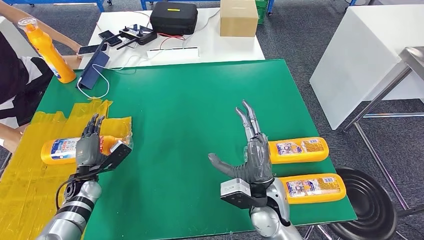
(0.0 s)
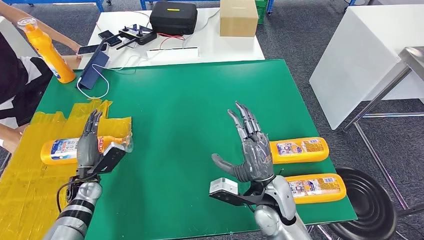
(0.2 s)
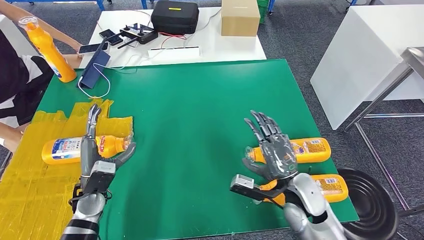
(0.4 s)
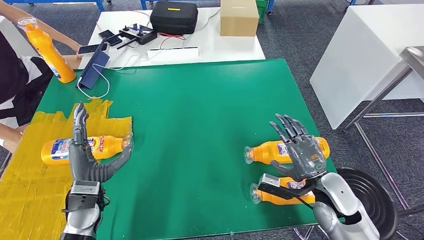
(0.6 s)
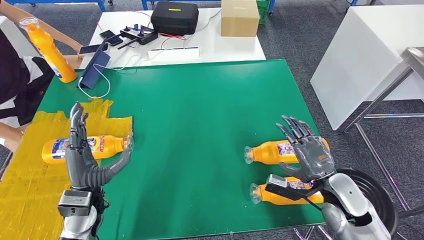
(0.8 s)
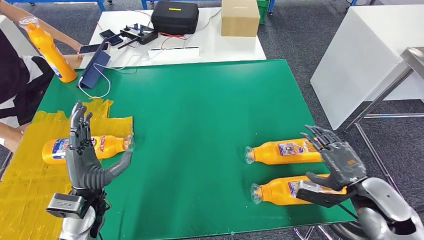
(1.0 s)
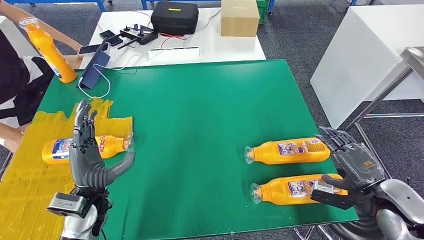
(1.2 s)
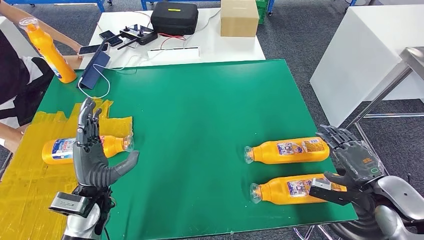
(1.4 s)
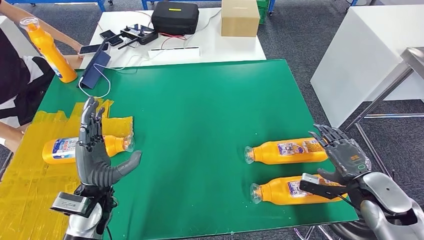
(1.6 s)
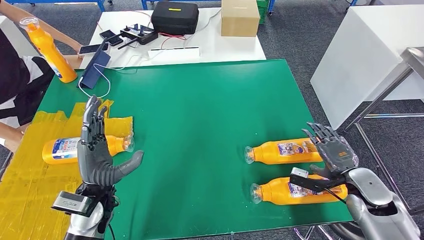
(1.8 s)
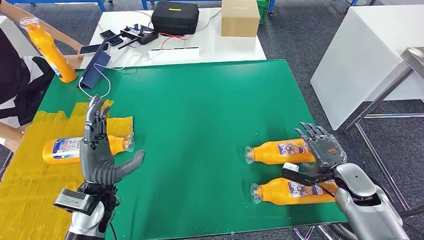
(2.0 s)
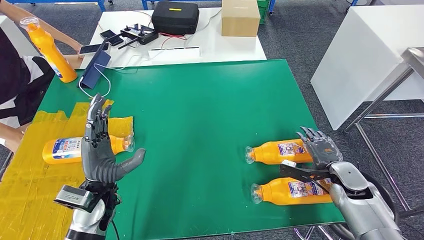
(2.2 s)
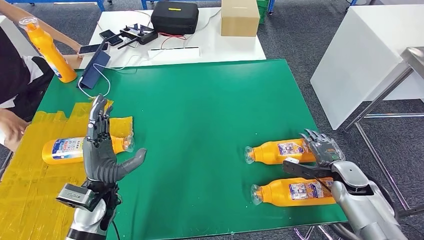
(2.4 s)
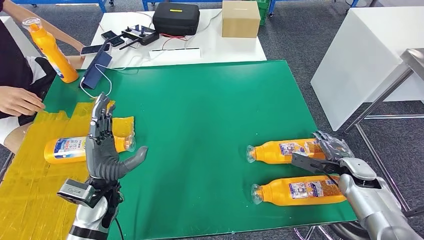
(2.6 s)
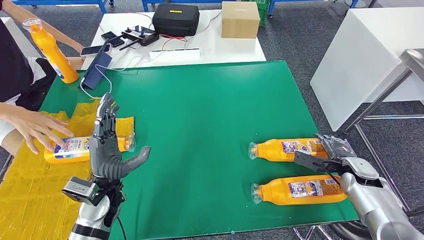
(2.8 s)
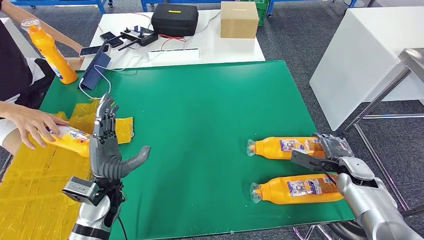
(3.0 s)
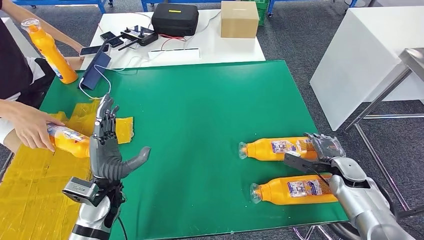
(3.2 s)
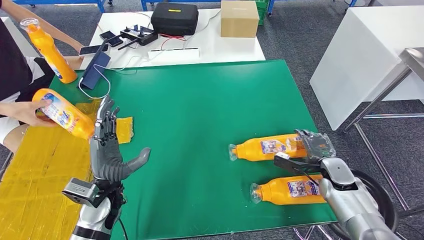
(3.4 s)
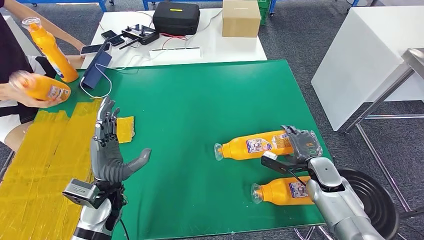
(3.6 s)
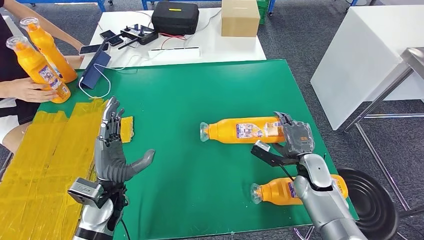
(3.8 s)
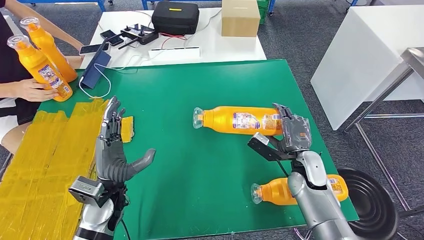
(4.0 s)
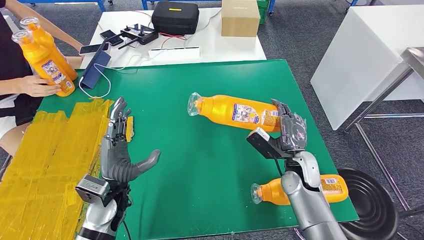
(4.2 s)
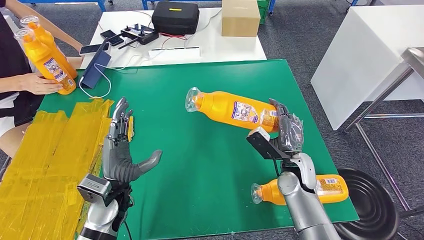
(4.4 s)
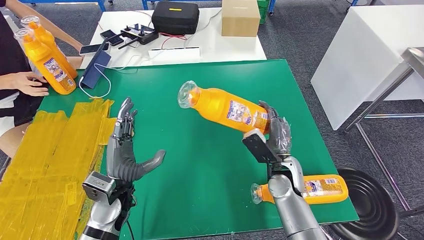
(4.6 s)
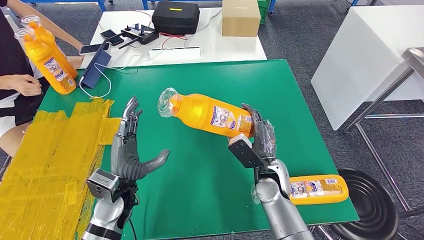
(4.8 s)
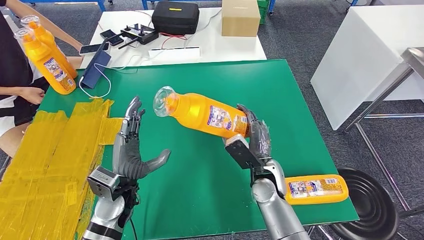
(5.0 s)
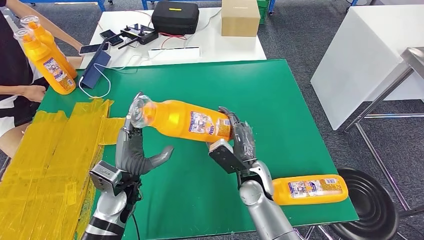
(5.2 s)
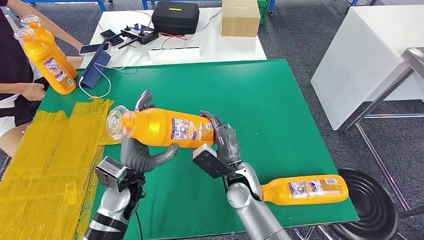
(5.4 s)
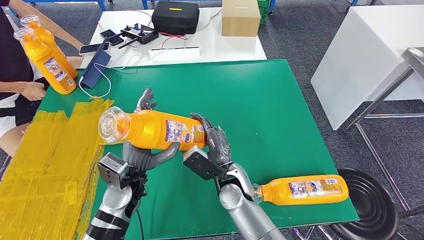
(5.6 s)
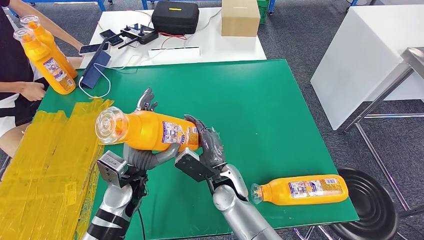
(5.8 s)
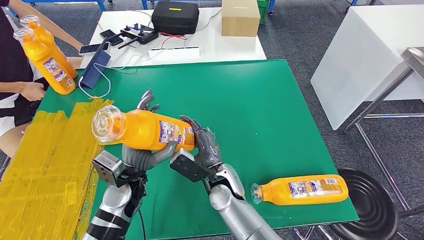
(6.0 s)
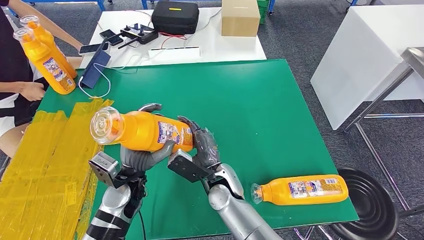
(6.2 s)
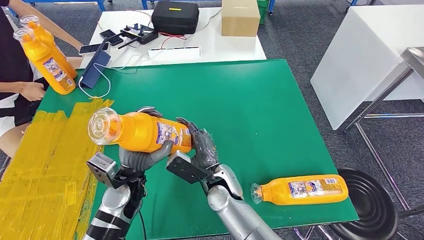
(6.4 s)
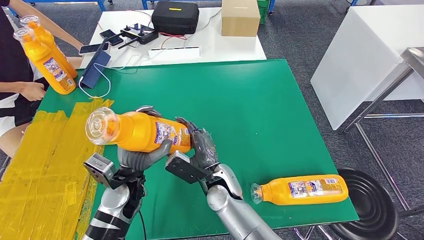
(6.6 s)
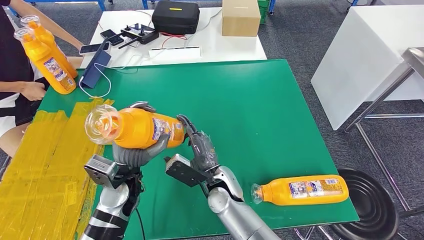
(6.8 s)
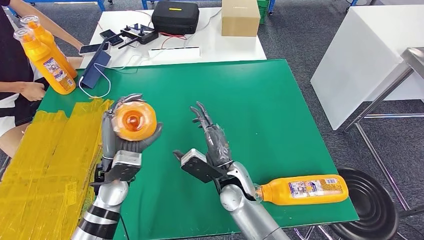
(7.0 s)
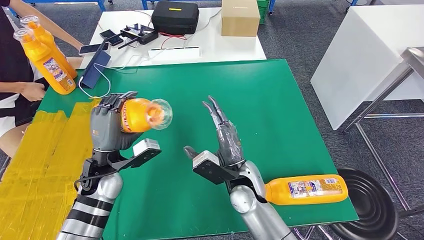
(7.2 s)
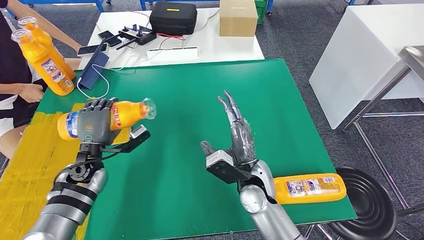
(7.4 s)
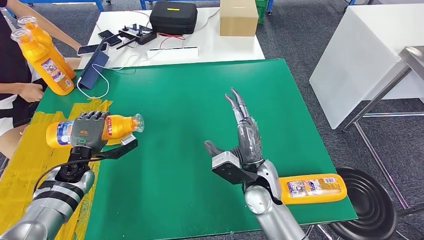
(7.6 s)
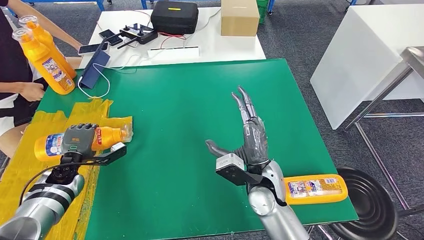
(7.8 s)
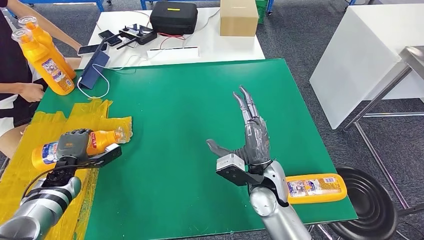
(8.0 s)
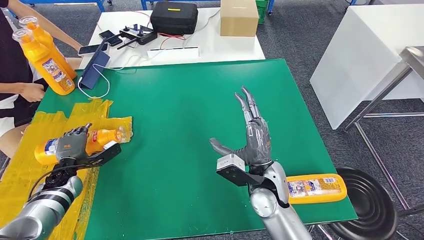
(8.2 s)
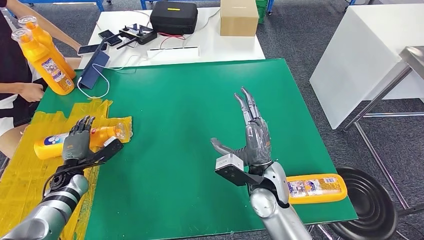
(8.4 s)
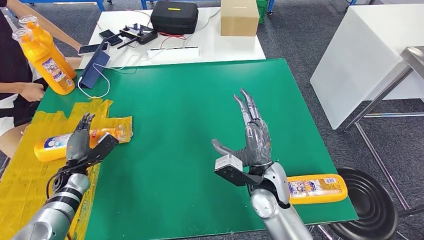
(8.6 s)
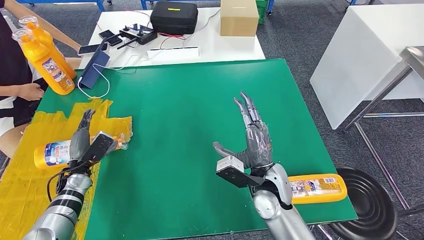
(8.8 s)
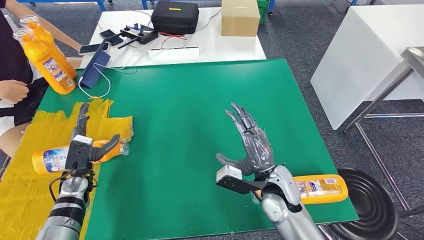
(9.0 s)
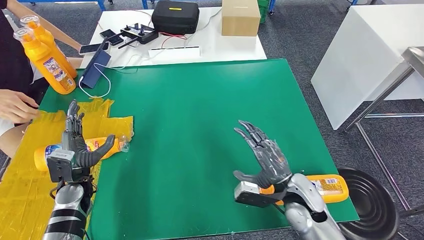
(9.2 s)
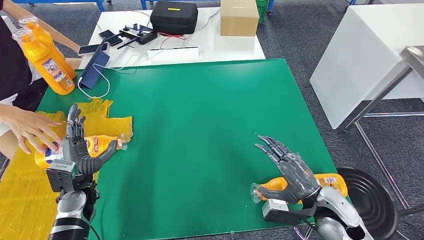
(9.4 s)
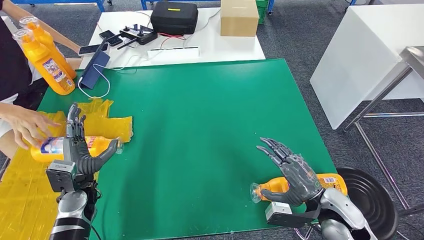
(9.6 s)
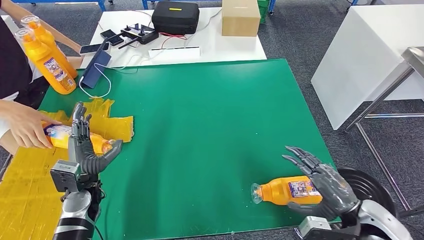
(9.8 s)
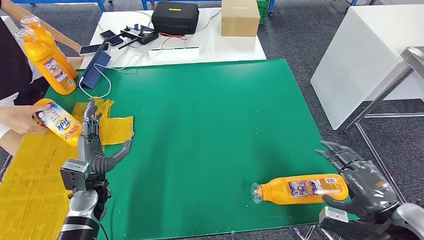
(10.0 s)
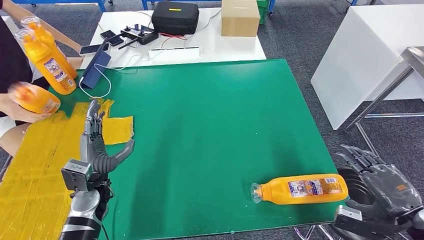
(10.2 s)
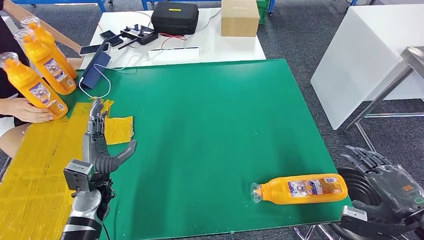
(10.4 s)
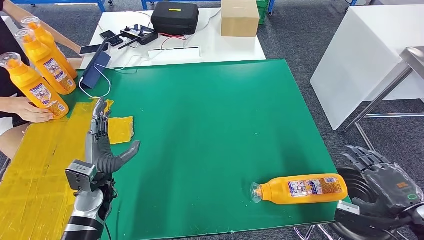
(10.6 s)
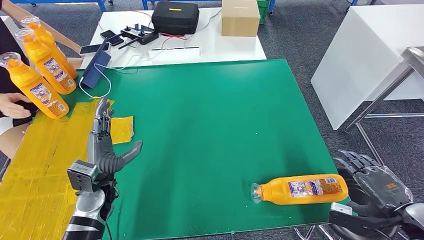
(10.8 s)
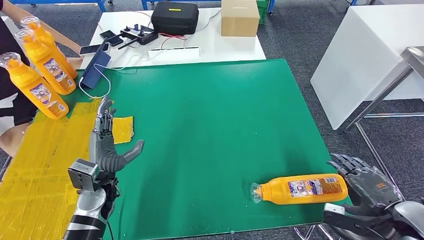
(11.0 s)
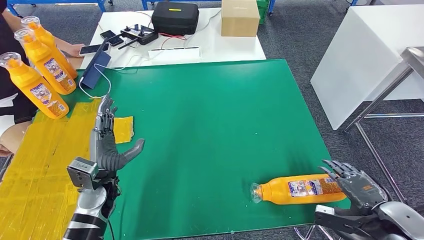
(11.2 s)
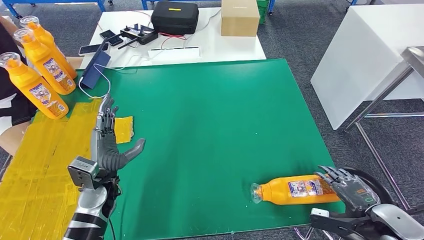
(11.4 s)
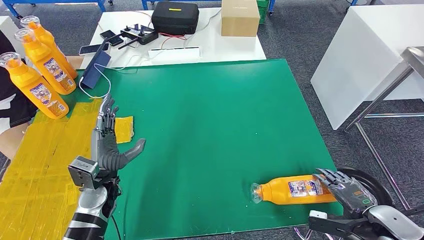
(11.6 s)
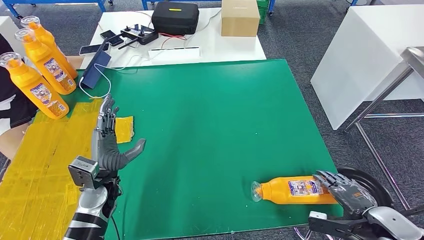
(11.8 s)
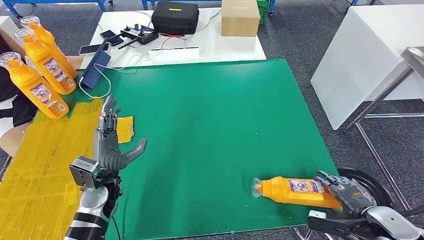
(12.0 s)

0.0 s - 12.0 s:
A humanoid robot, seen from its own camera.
Step, 2.8 s - 5.2 s: Pick up the fast-moving consumer goods bottle from the table.
Step, 5.4 s - 9.2 s: Flip the fast-moving consumer goods bottle to the front side.
10.4 s - 12.0 s: The right hand heads downward, covering roughly 10 cm.

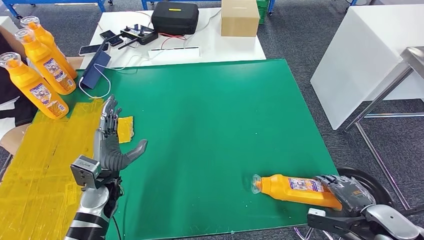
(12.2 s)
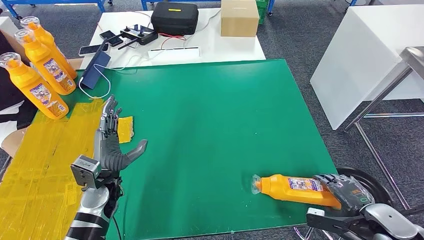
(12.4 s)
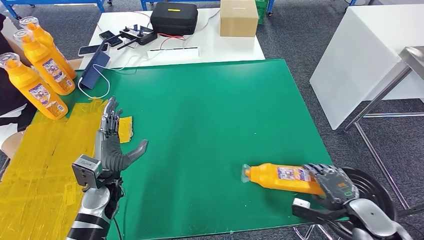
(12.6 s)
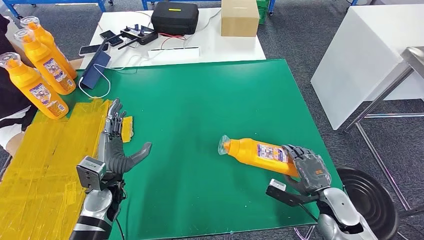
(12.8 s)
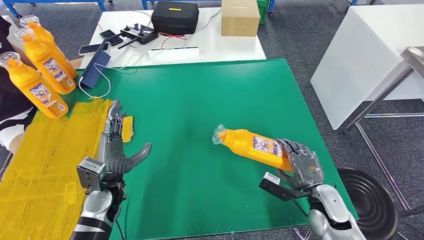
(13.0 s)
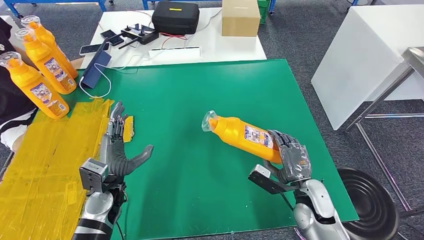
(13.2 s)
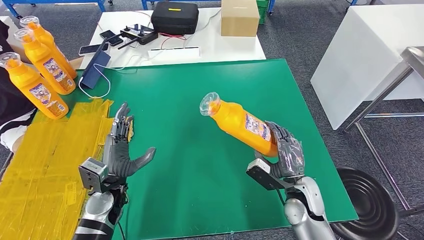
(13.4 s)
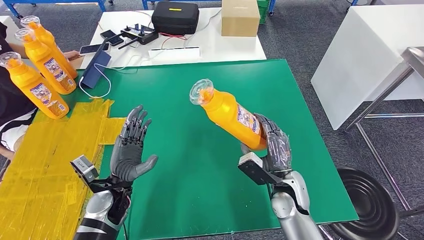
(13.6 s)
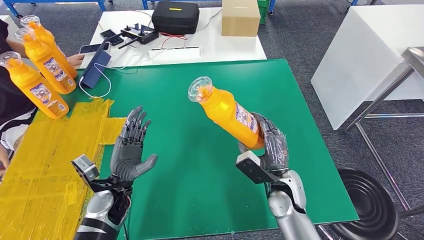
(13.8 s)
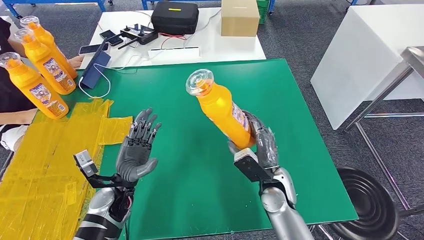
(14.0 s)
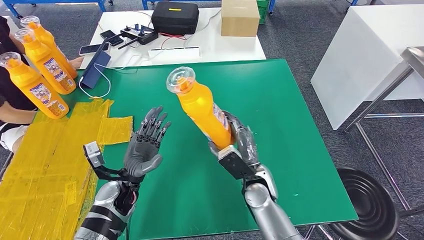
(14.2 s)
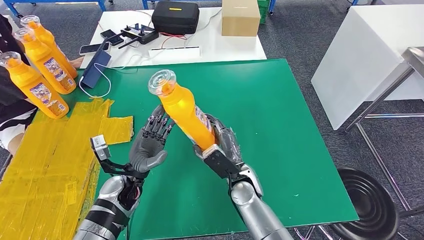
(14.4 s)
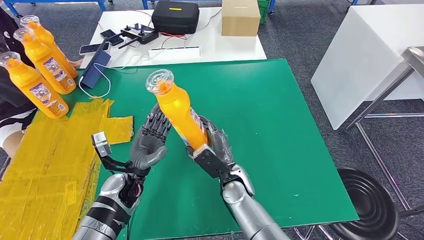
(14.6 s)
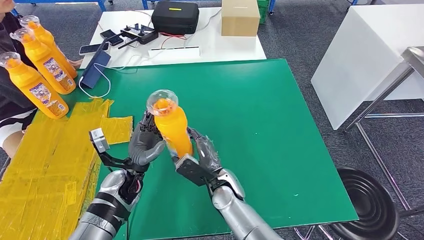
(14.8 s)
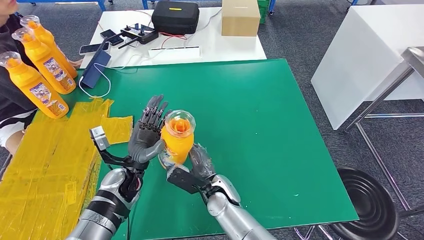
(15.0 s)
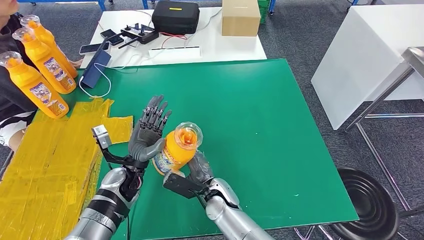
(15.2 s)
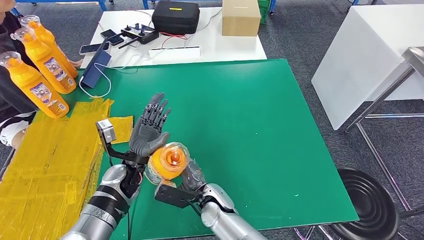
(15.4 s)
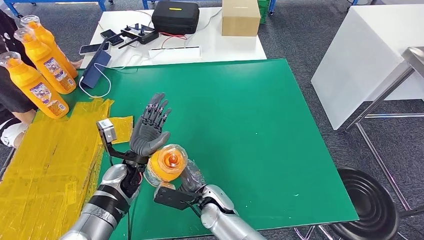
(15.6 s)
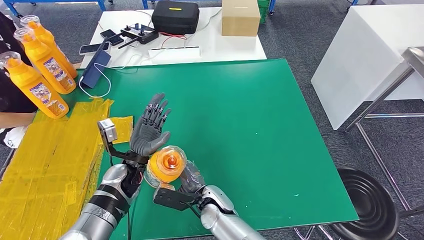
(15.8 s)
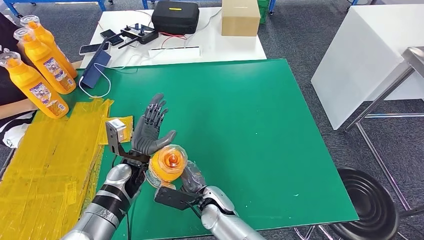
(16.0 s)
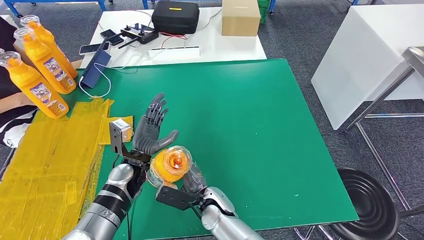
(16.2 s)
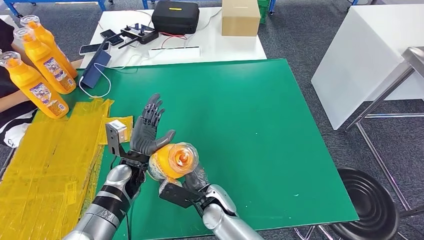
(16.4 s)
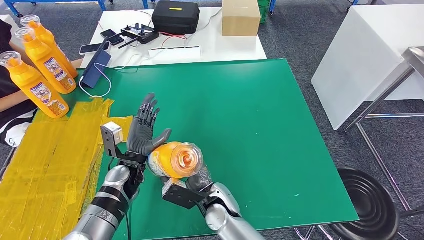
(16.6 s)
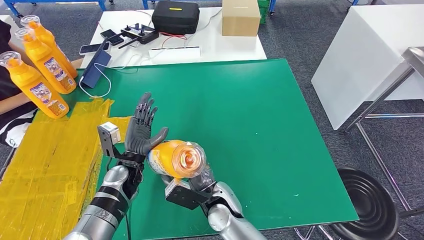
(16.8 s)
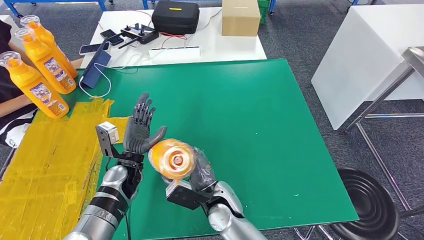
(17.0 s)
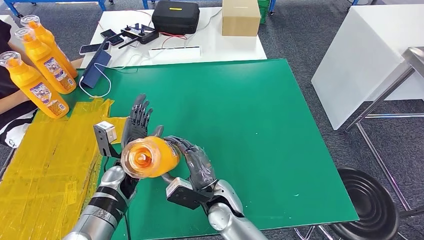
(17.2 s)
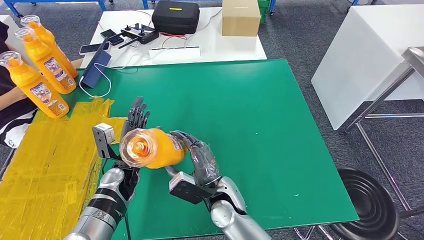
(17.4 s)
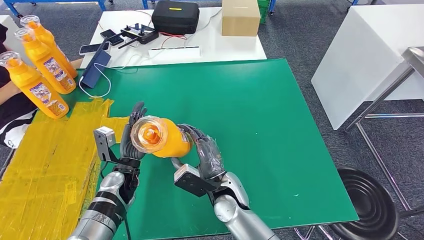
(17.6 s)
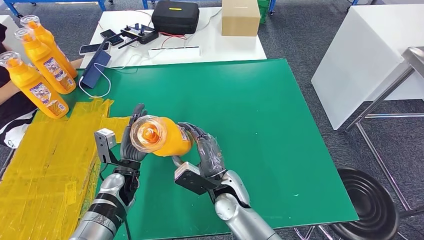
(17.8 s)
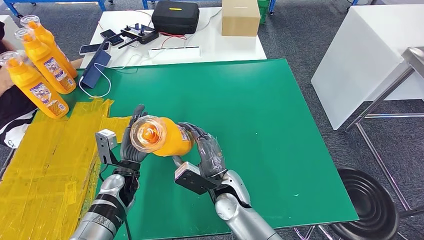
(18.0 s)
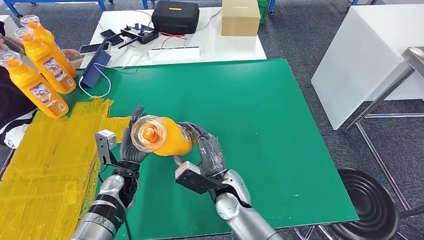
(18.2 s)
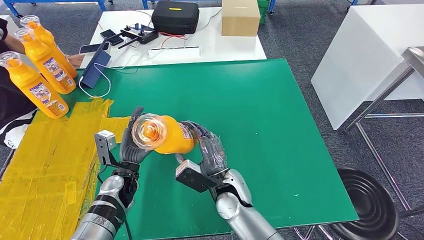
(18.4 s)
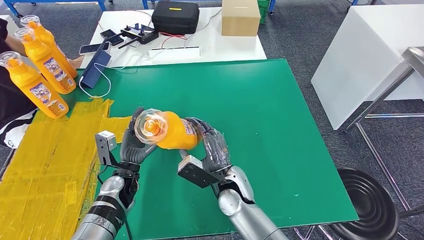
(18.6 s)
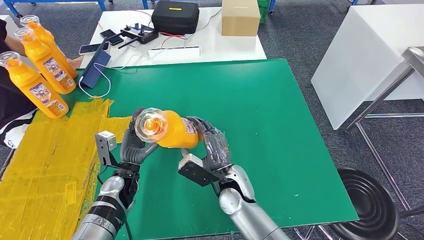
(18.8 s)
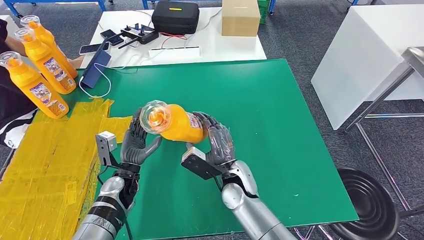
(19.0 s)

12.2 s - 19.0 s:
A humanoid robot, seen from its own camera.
Step, 12.2 s - 16.4 s: Pick up the fast-moving consumer goods bottle from the table.
12.2 s - 13.6 s: The right hand heads to the left and forward, covering approximately 25 cm.
13.6 s - 15.0 s: The left hand changes place by about 5 cm. Meanwhile the right hand is displaced to the left by some 20 cm.
16.2 s - 17.6 s: The right hand is displaced upward by roughly 5 cm.
17.6 s - 19.0 s: There are only small adjustments of the hands.
